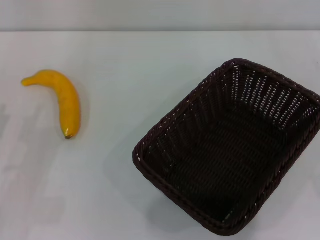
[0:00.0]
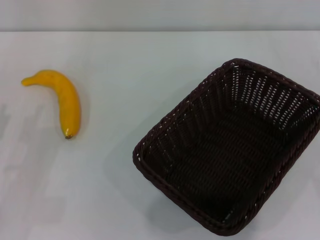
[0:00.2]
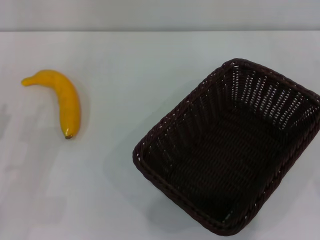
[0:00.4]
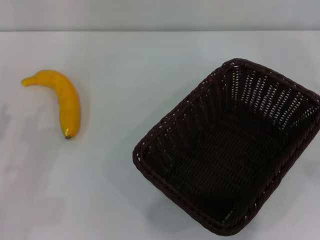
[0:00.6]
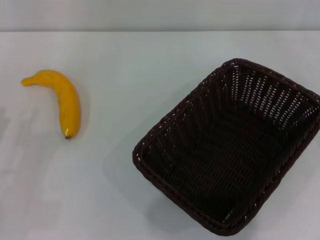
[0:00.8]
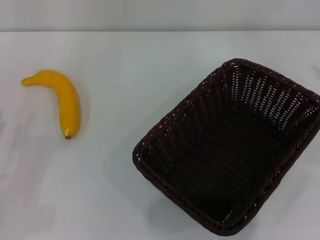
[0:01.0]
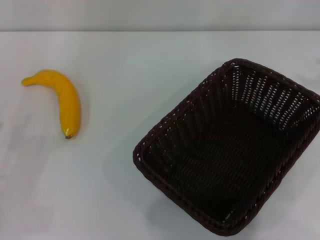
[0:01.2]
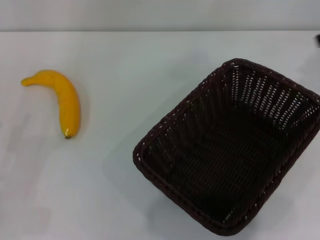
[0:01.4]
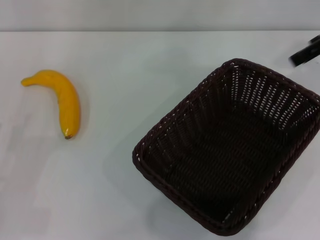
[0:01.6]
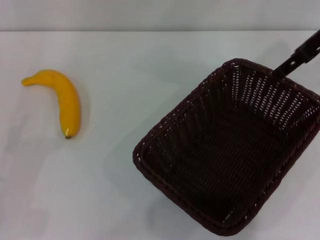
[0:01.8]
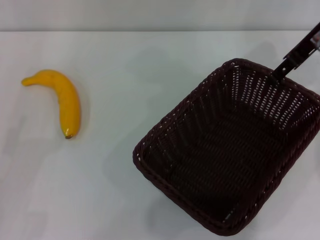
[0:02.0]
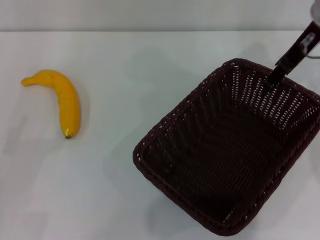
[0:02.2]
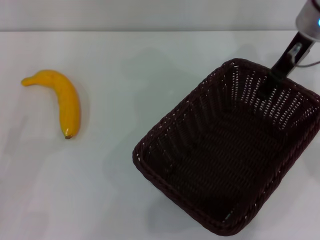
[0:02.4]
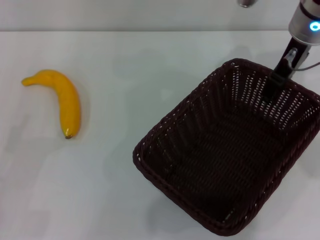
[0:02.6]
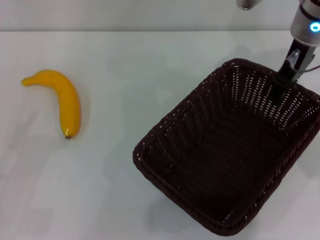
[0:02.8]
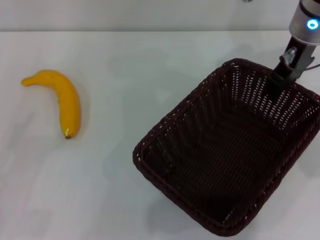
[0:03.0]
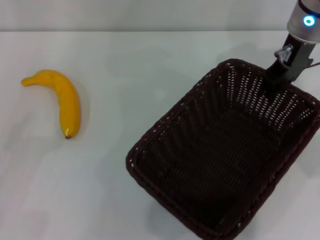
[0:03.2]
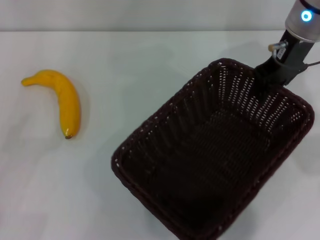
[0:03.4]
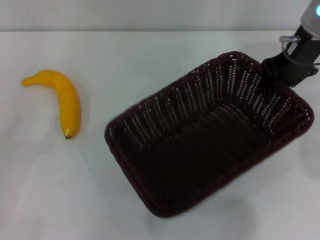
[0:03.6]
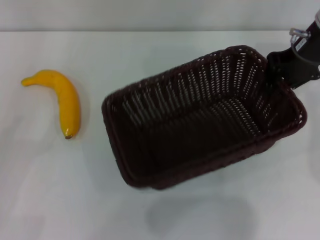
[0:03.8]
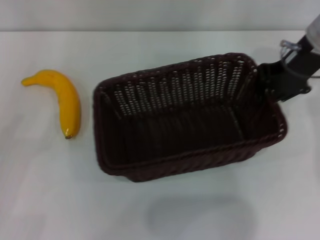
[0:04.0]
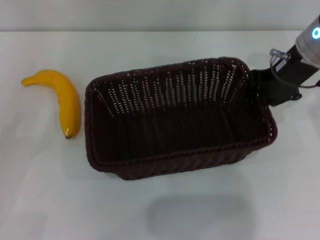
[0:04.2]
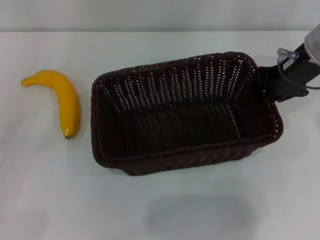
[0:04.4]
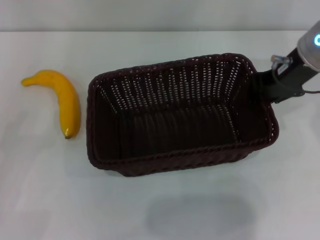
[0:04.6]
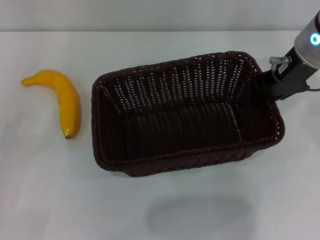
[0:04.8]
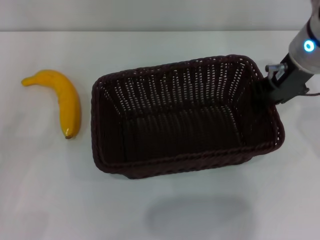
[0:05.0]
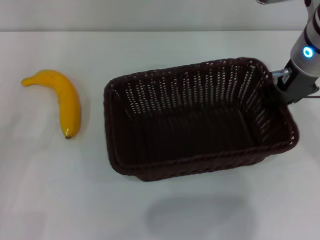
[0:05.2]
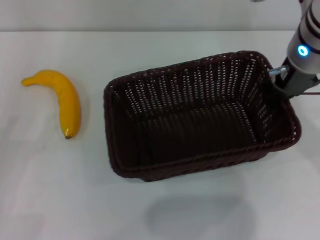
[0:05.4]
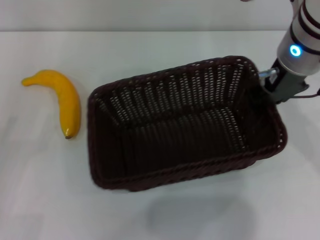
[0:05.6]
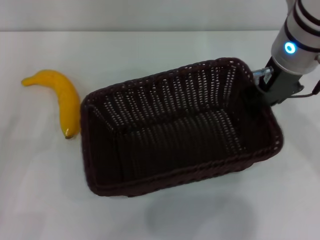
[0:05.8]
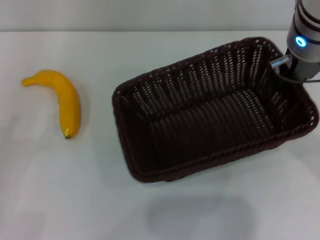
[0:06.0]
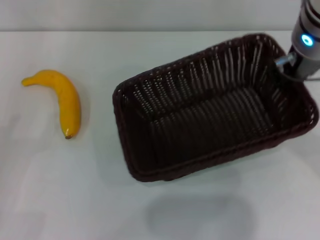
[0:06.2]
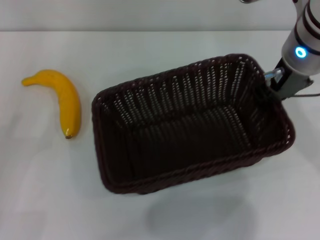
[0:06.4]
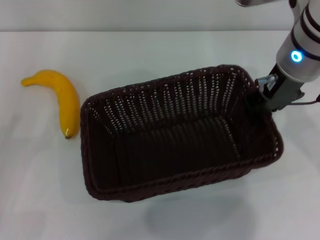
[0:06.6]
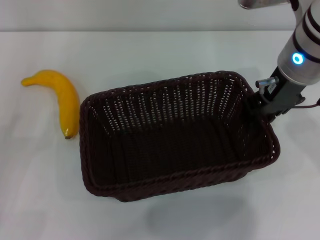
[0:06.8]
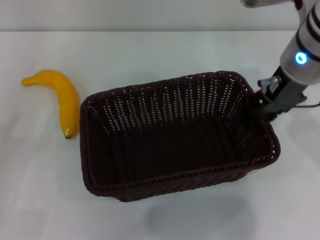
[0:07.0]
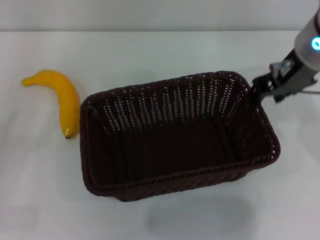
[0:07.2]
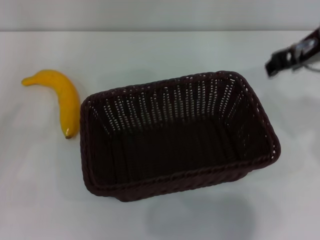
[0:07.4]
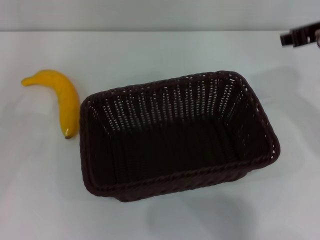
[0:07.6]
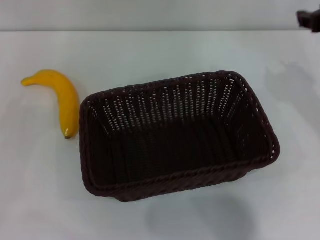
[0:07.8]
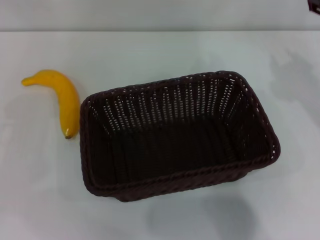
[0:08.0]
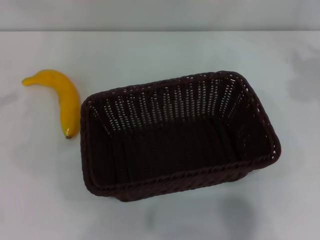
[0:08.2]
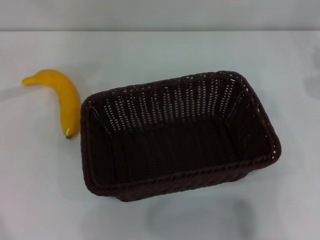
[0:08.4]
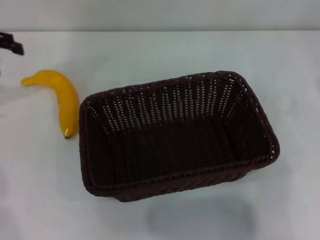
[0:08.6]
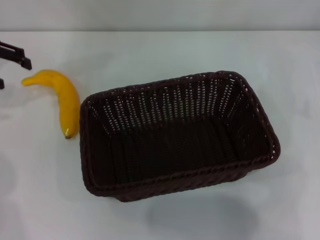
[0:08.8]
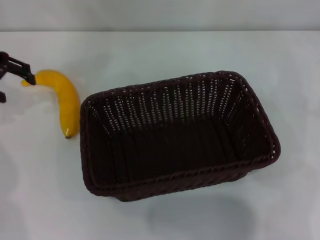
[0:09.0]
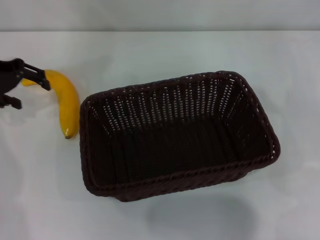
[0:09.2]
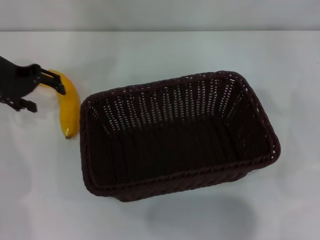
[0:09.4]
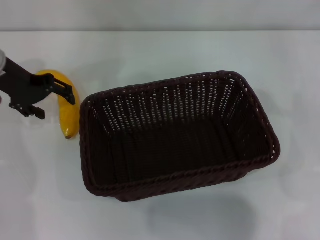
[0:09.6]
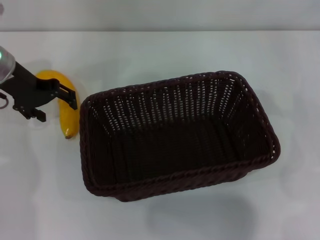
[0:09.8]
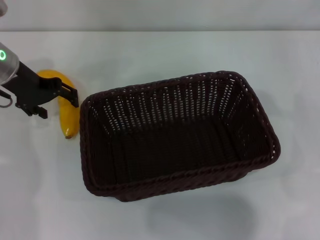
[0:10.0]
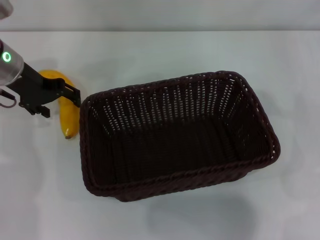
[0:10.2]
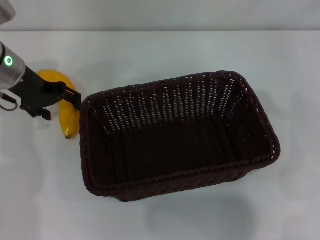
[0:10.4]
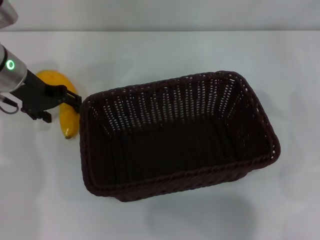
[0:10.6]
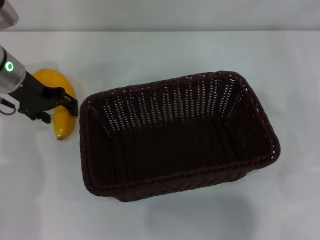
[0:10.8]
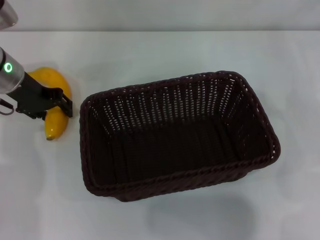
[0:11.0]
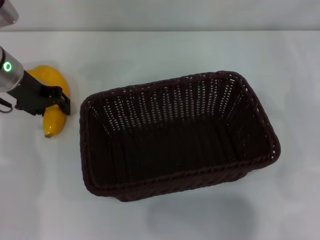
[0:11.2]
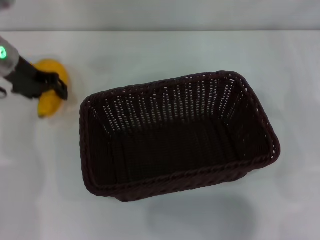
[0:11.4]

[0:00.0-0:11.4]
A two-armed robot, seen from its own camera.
Step, 0:00.0 to 0:03.4: Pick up the dark basket with the right gripper.
Step, 0:03.6 to 0:07.4: Place the dark basket in the center of view with the right gripper.
Step, 0:07.6 to 0:11.4: Pick up the banana with the left gripper.
0:01.4 to 0:02.8: The right gripper goes roughly 15 cm to the left and downward.
0:02.8 to 0:04.2: The right gripper closes up.
0:04.2 to 0:05.6: The right gripper is displaced to the left by some 5 cm.
0:05.6 to 0:07.2: The right gripper opens its fingers.
0:07.2 to 0:08.6: The right gripper shifts roughly 20 cm to the right; the left gripper shifts roughly 25 cm forward and upward.
0:08.6 to 0:10.0: The left gripper moves to the right and downward, about 15 cm.
0:10.0 to 0:11.4: The left gripper closes.

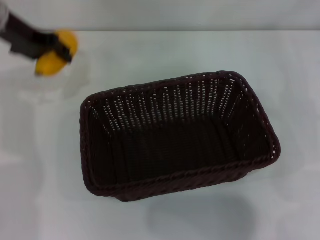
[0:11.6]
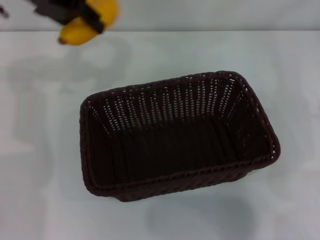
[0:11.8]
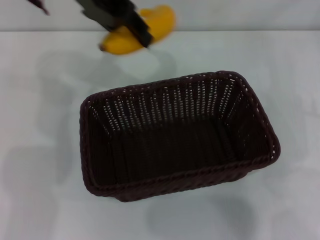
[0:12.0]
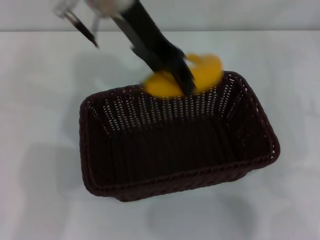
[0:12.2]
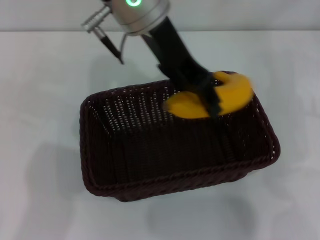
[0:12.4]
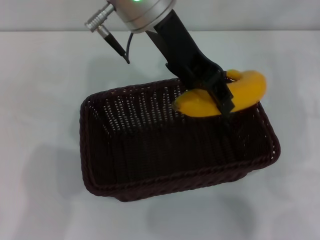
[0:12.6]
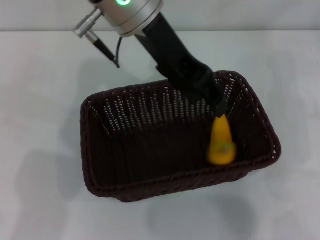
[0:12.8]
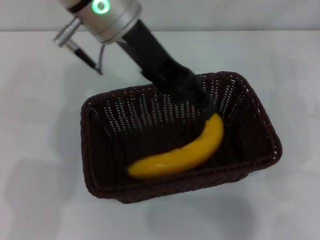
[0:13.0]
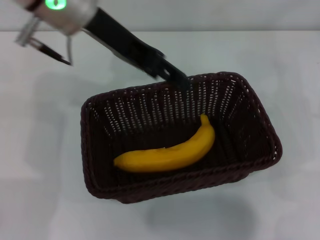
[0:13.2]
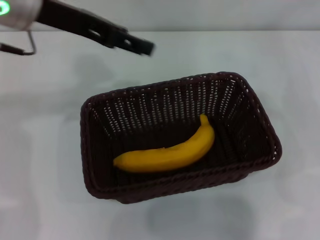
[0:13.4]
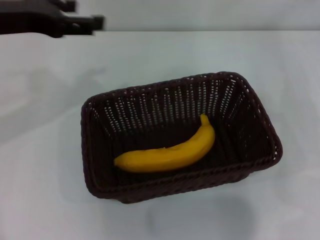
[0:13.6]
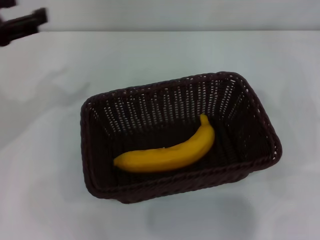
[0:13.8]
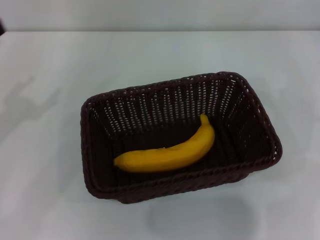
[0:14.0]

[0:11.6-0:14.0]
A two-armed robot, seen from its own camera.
Step, 0:11.6 to 0:13.2: Place the banana into the dark basket with the left gripper.
0:11.6 to 0:12.8: The left gripper moves to the right, some 20 cm.
0:12.8 to 0:14.0: The left gripper goes roughly 30 cm to the left, and opens its fingers.

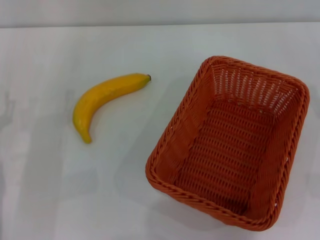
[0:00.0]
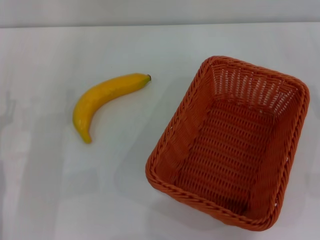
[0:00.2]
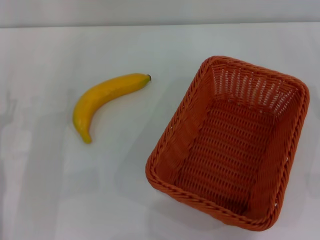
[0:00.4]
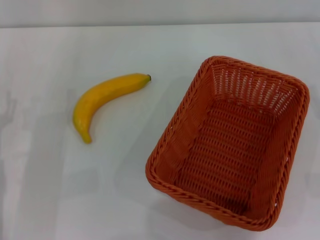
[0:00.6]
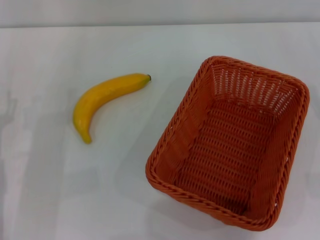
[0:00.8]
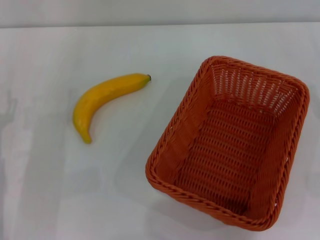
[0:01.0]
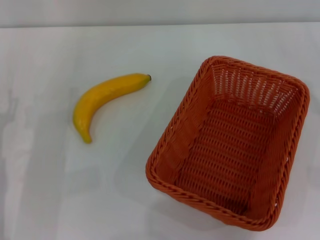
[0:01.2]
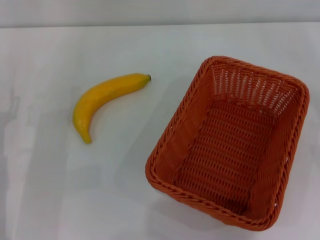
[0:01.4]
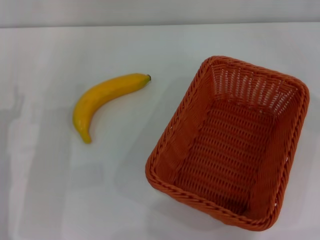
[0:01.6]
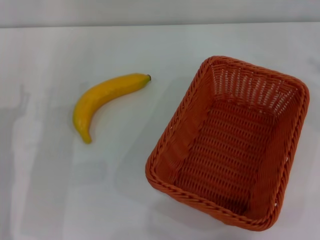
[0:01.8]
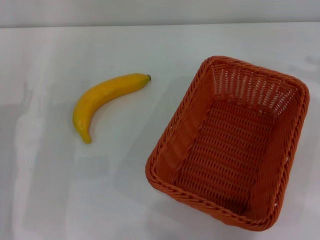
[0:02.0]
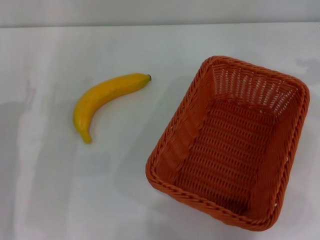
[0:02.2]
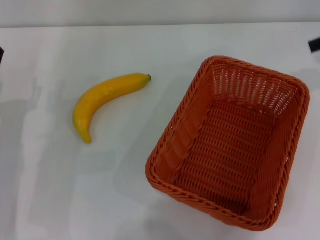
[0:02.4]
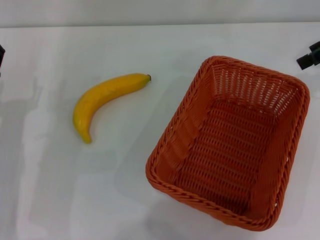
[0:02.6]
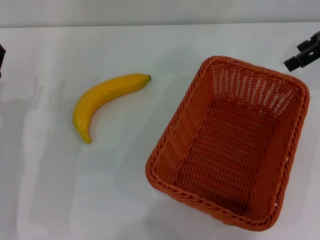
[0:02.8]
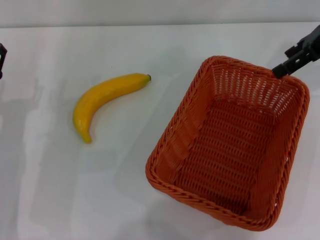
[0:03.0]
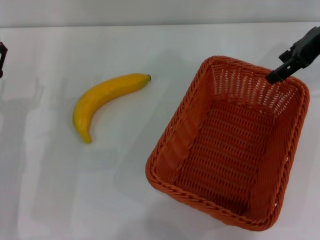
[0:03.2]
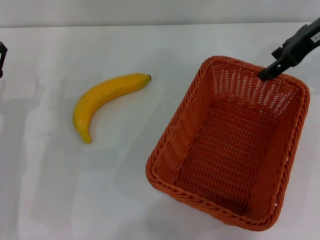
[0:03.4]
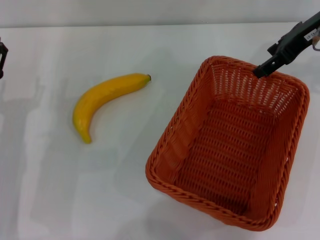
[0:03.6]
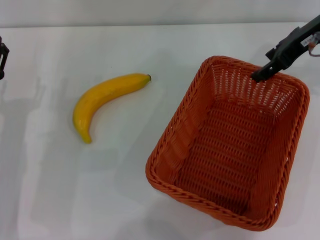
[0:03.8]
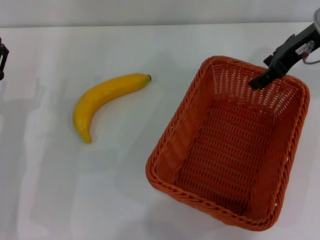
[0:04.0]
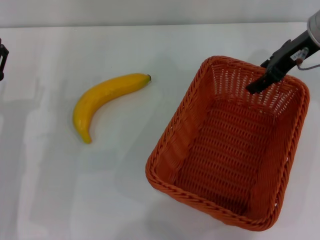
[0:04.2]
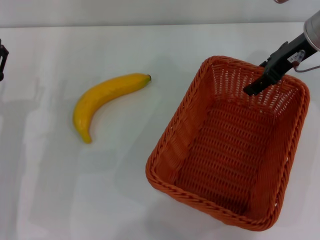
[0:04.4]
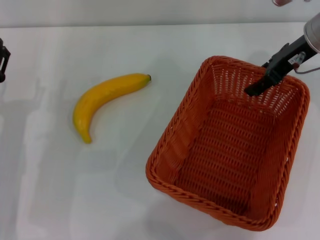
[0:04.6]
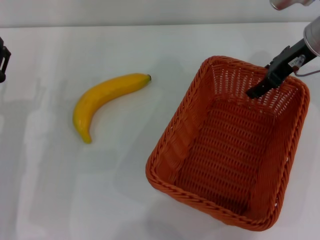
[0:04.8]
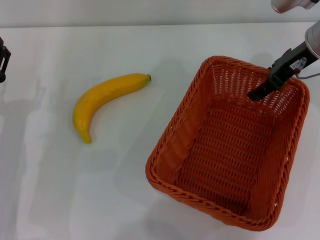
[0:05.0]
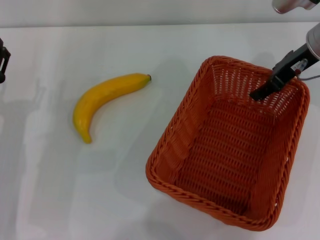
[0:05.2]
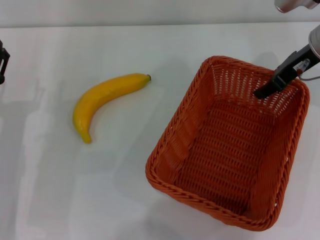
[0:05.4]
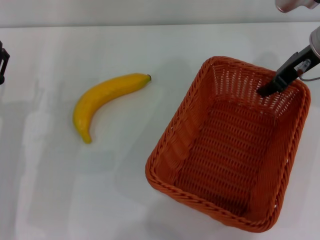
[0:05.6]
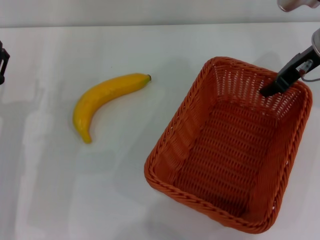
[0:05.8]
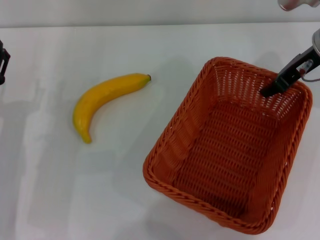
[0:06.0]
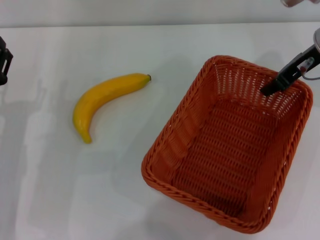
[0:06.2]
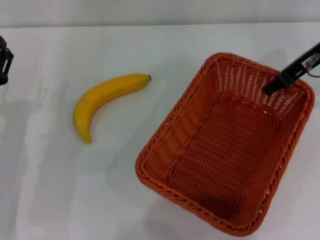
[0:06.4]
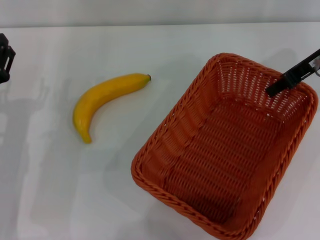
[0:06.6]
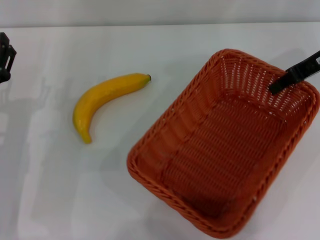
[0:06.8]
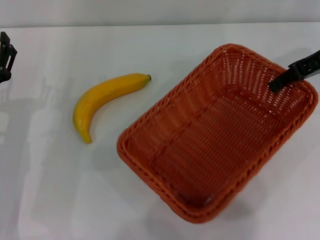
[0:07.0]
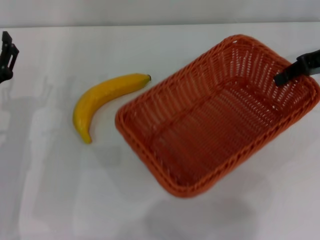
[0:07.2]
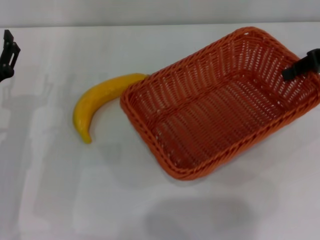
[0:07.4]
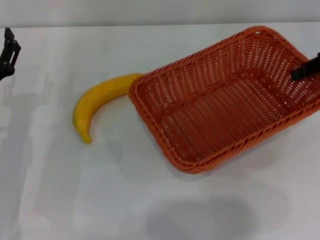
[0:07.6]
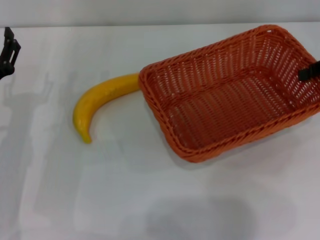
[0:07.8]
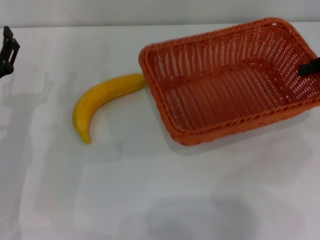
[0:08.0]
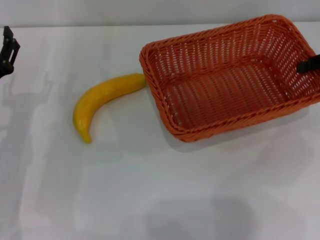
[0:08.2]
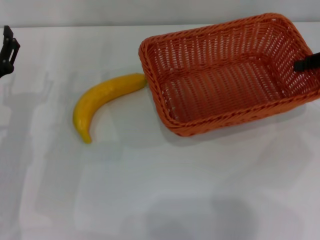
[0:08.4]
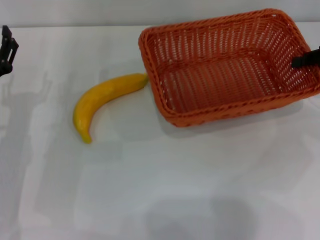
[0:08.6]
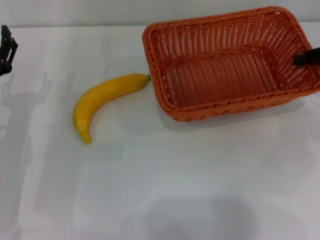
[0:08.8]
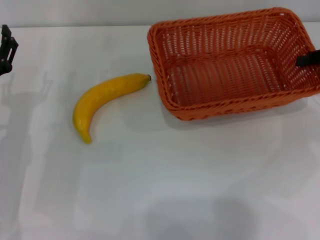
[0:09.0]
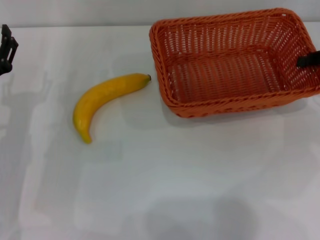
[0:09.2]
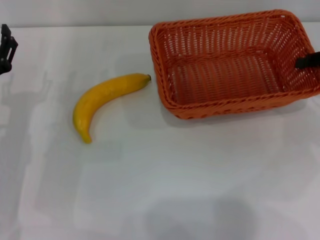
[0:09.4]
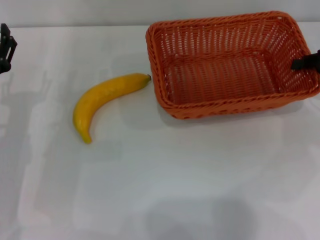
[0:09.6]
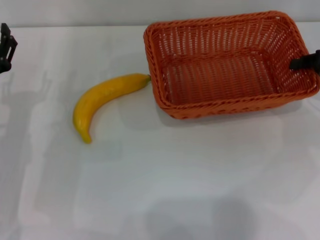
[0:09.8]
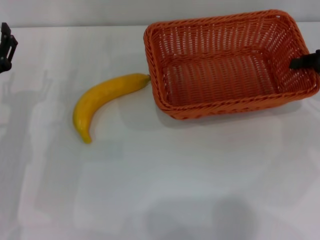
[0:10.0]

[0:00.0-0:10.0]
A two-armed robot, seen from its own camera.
Step, 0:00.0 to 0:07.0: Pick up the light basket with the right gripper.
0:01.4 to 0:02.8: The right gripper is displaced upward, forward and to the left by about 25 cm.
0:02.8 to 0:04.2: The right gripper is displaced to the left and downward by roughly 10 cm.
0:04.2 to 0:05.8: The right gripper closes its fingers.
0:05.8 to 0:07.2: The right gripper is displaced to the right by approximately 5 cm, and closes up.
0:07.2 to 0:08.6: The right gripper travels to the right and downward by roughly 5 cm.
0:08.6 to 0:10.0: The grippers make only small movements.
